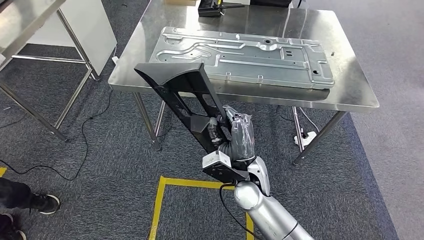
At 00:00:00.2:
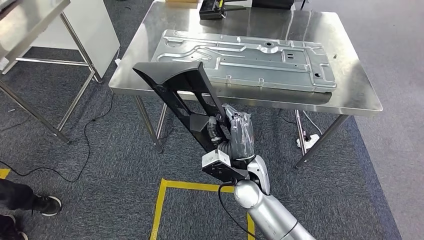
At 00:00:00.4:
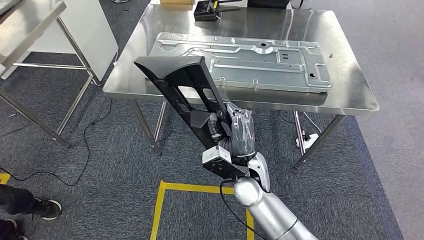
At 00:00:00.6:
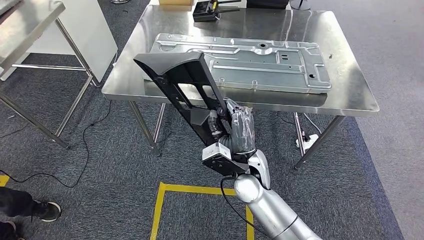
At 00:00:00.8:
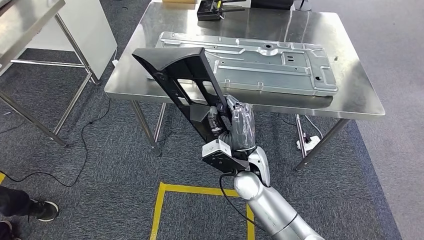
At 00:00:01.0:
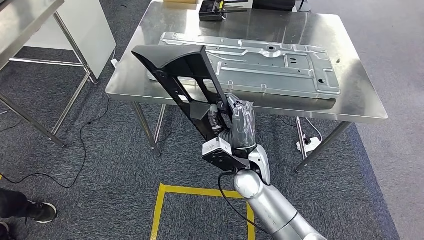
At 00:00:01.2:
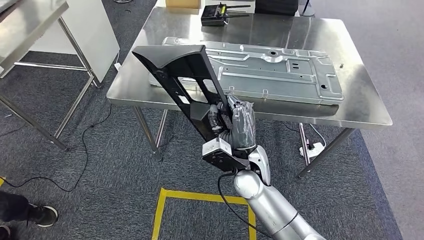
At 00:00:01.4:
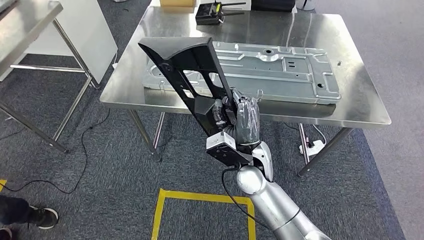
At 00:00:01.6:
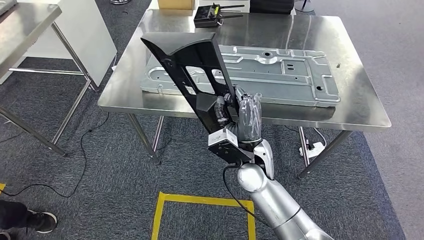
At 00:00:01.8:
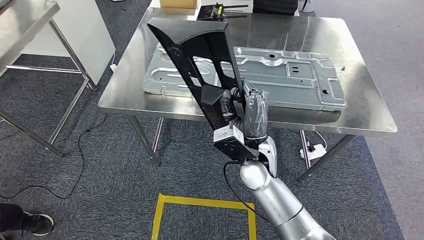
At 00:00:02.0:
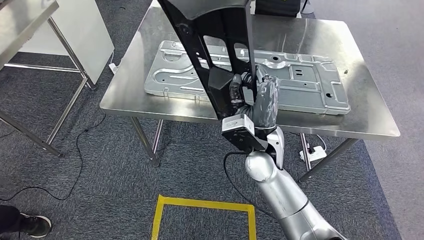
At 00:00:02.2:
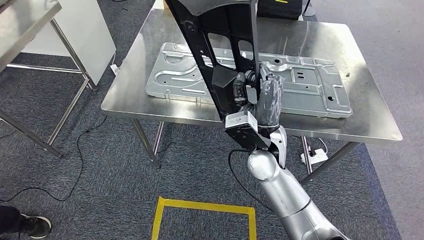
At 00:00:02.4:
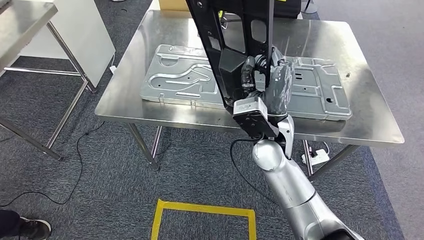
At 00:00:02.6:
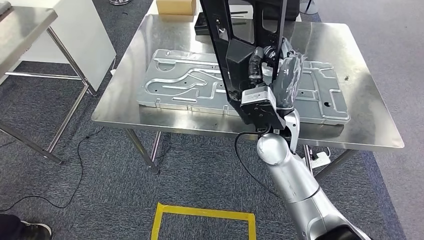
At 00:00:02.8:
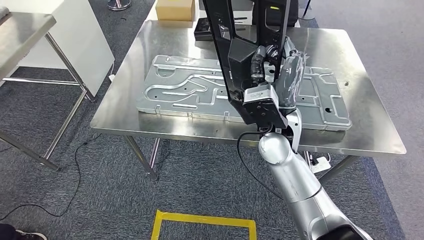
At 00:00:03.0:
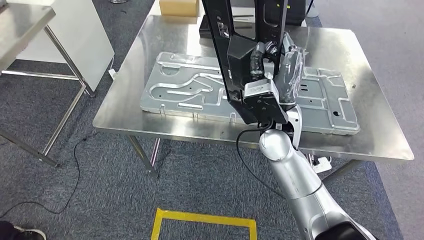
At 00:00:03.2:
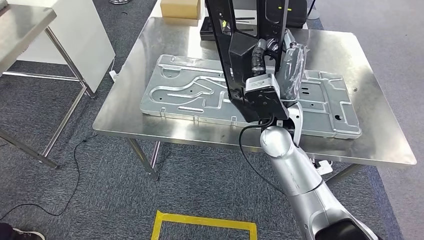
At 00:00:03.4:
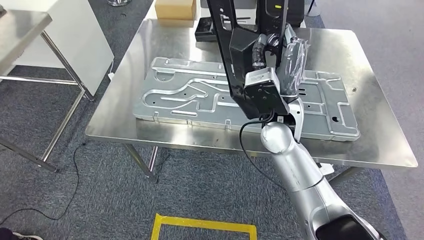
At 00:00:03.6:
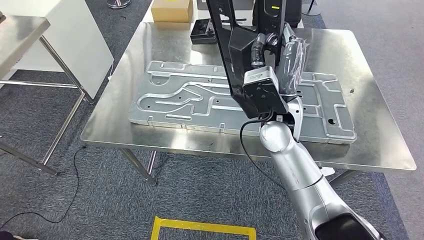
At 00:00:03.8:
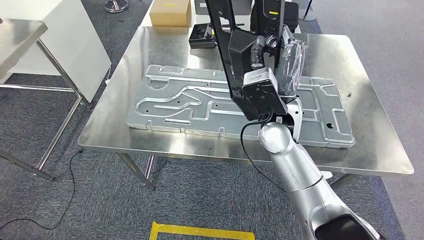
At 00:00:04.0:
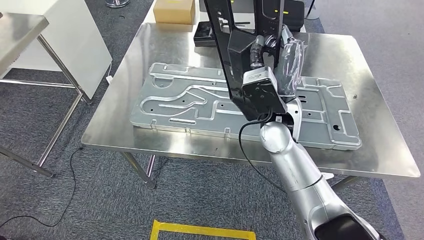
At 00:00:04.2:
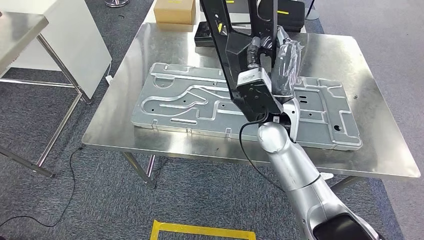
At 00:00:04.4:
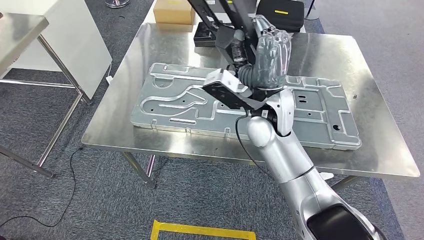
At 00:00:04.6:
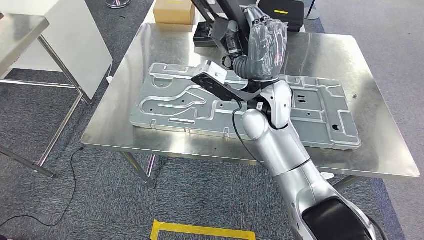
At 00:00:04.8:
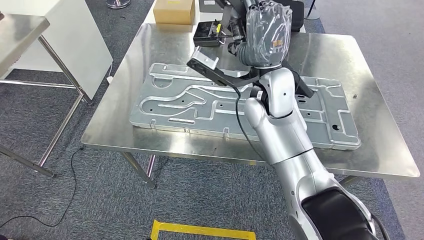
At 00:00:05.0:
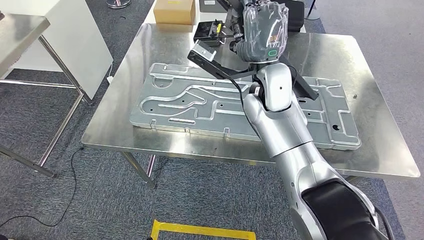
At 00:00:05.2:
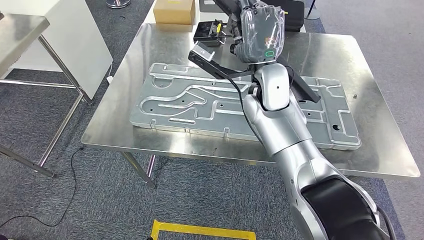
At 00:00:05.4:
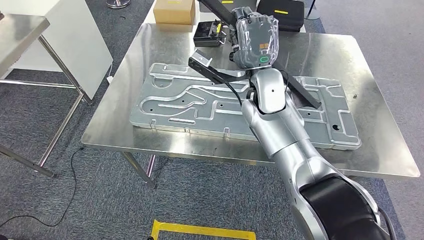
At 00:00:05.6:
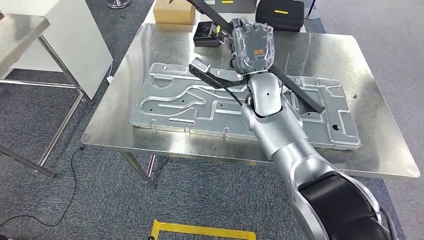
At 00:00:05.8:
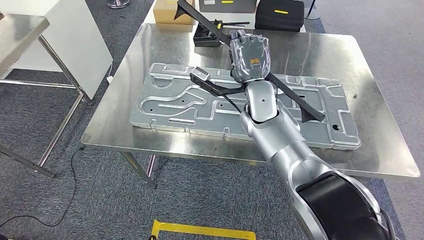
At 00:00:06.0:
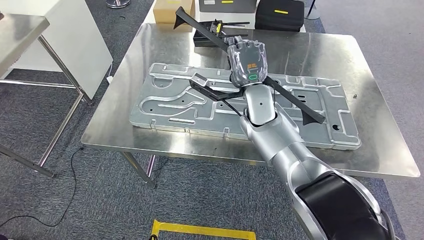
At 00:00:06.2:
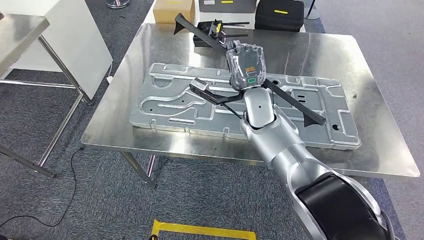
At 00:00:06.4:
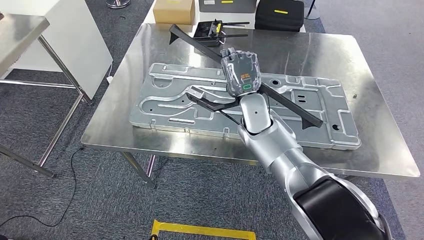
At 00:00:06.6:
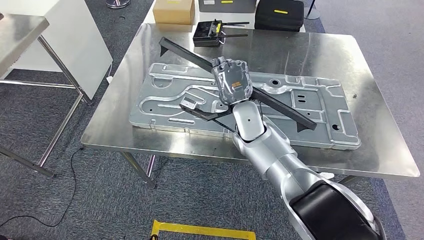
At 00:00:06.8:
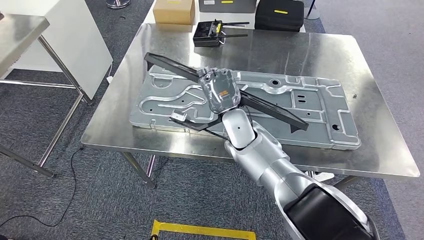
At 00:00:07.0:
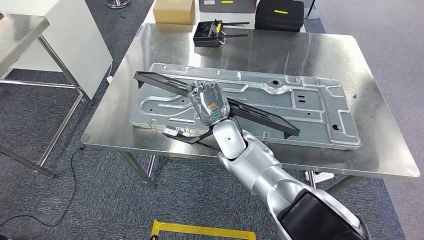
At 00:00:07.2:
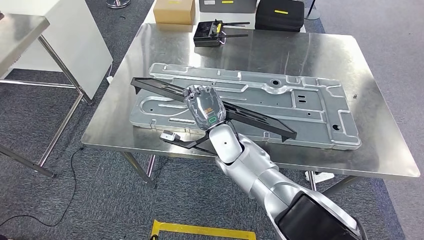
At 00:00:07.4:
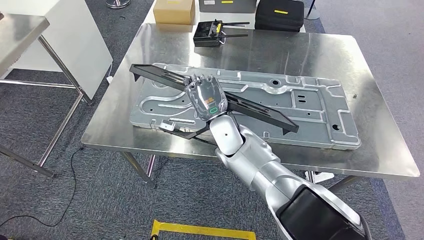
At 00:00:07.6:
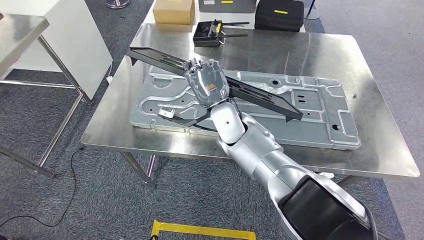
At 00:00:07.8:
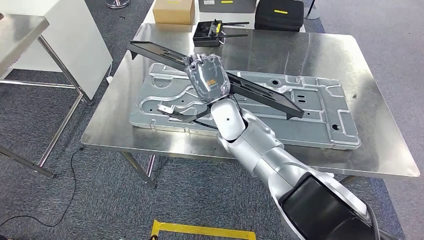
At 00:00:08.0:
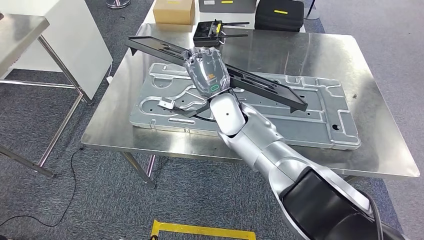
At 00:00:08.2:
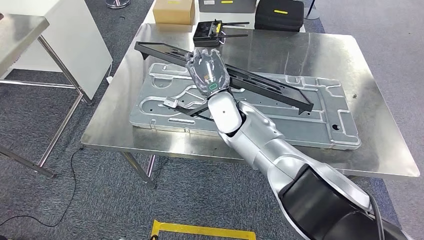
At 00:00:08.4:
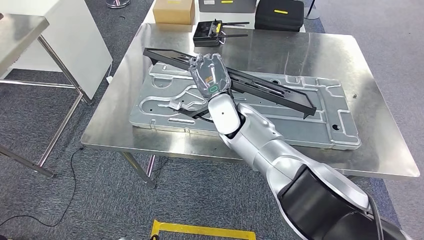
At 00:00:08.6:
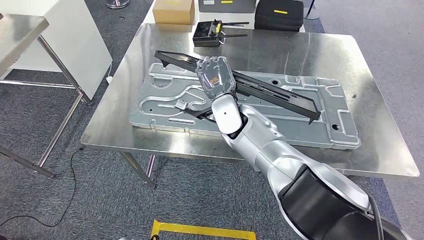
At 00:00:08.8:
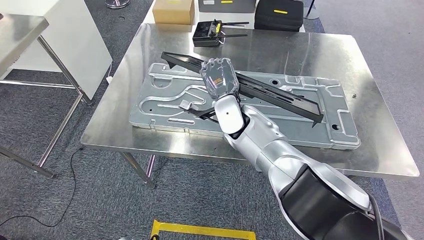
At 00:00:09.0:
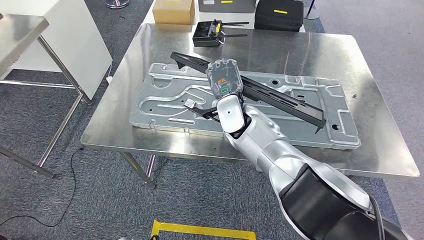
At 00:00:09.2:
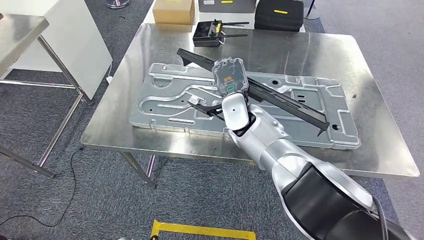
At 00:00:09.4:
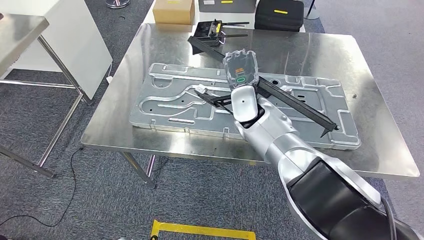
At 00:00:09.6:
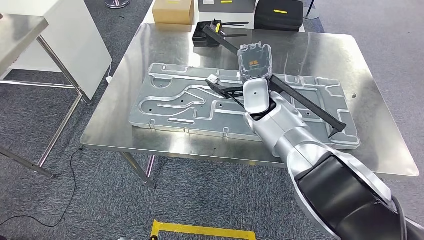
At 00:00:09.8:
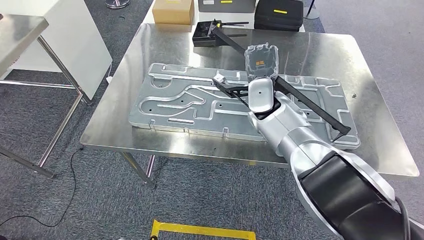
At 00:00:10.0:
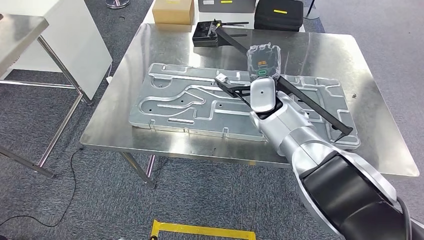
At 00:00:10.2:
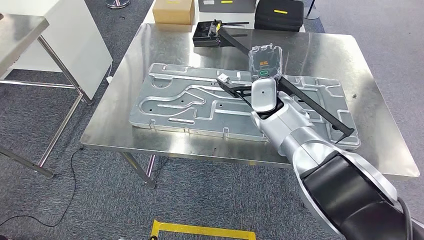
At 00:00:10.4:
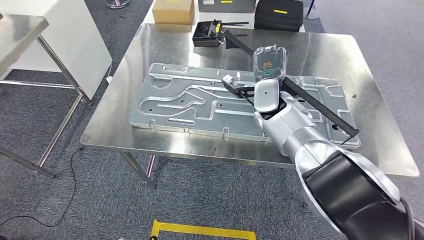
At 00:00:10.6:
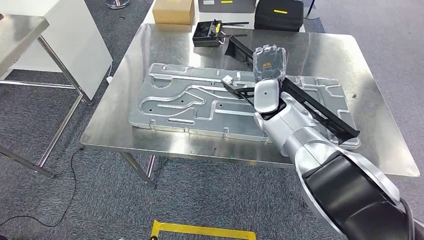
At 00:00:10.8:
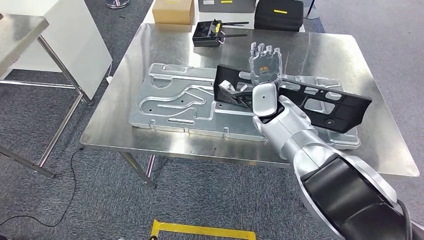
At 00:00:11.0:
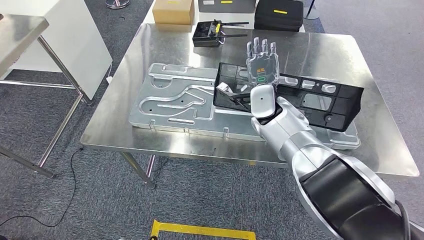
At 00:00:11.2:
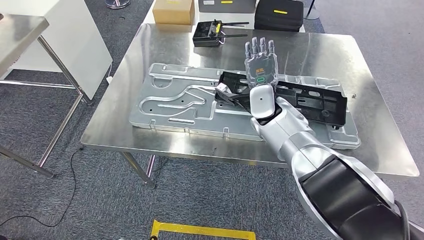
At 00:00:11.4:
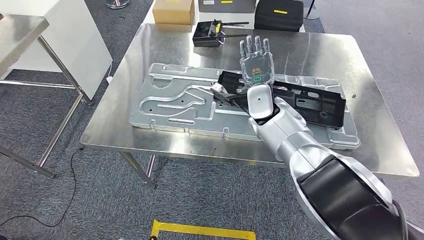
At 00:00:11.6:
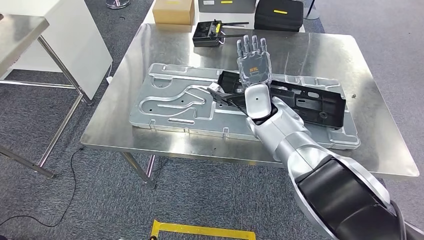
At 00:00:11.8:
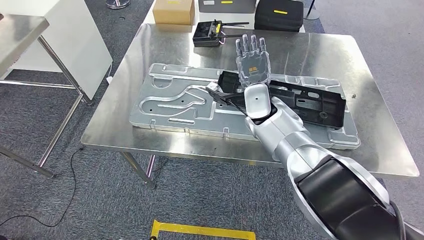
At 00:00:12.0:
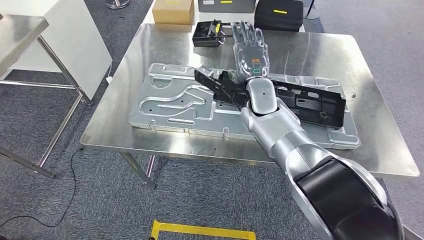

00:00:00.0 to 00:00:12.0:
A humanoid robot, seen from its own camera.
Step, 00:00:00.0 to 00:00:02.0: Move the large material to the workbench.
00:00:04.4 to 00:00:06.0: The right hand travels forward by approximately 5 cm.
00:00:06.0 to 00:00:07.6: The right hand shifts about 5 cm to the left, and travels downward and back again, some 10 cm each way.
00:00:09.0 to 00:00:10.4: The right hand heads to the right, covering some 10 cm.

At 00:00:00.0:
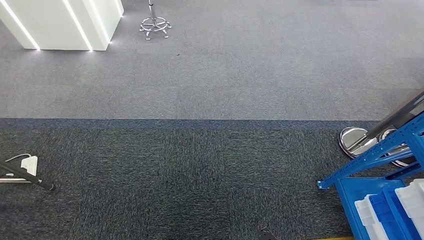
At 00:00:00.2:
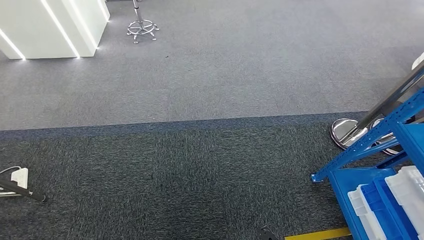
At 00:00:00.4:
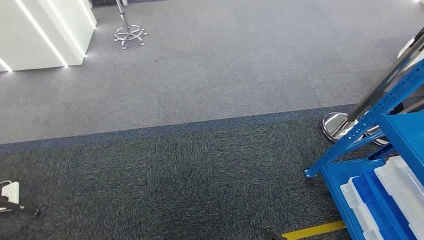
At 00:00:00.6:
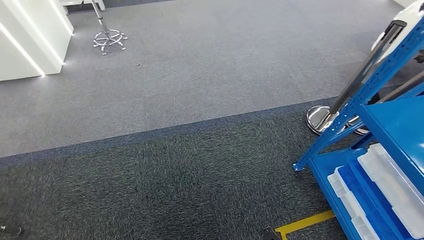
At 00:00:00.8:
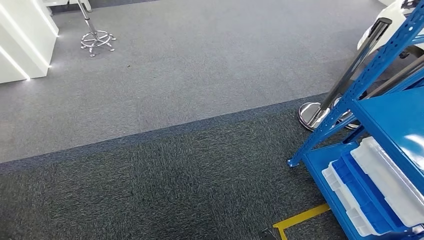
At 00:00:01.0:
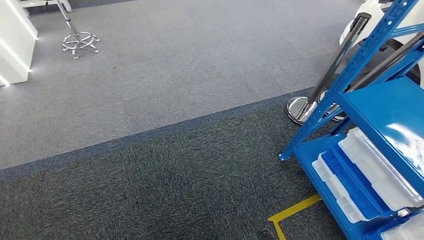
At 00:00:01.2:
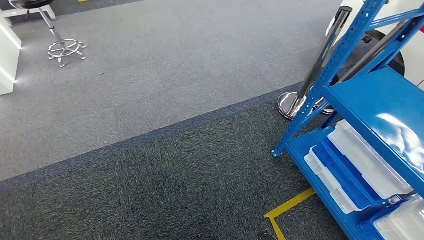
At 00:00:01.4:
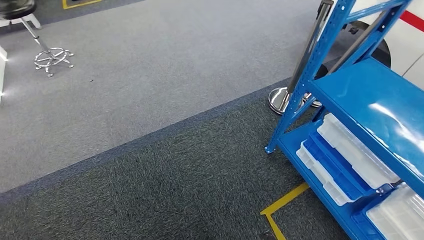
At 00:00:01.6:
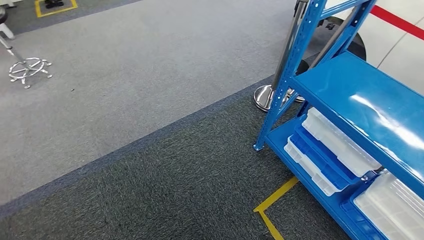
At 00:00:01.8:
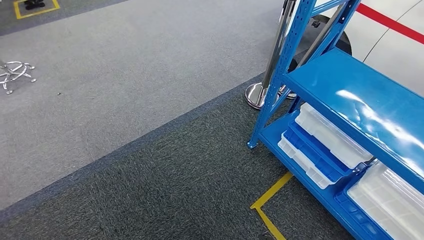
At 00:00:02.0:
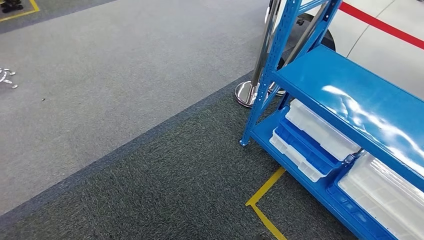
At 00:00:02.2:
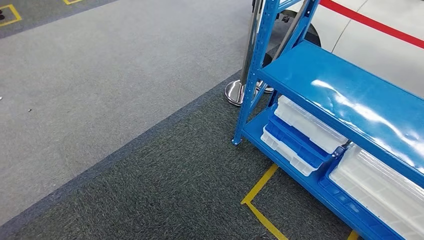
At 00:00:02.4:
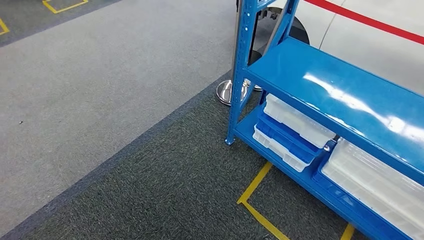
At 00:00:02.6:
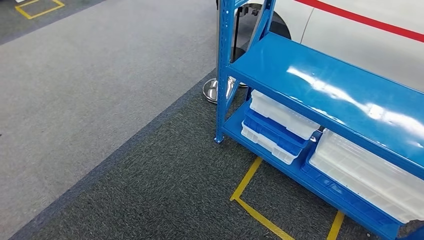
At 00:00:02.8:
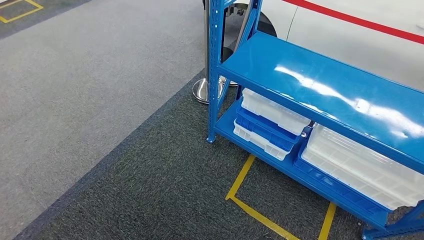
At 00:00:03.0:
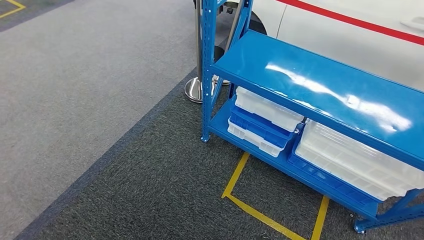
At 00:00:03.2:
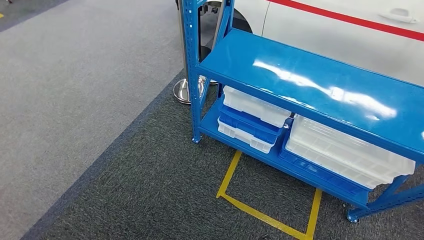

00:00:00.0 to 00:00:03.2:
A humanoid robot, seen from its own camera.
Step, 00:00:00.0 to 00:00:03.2: Move to the initial position of the shelf.
